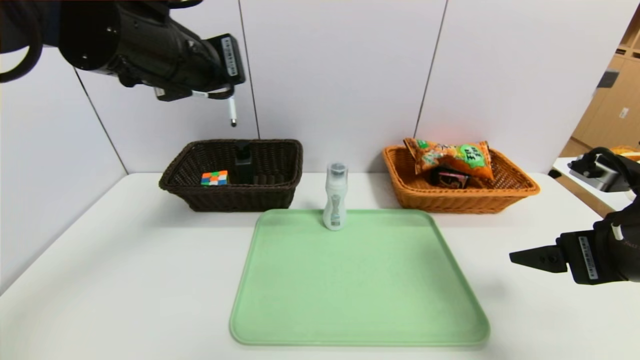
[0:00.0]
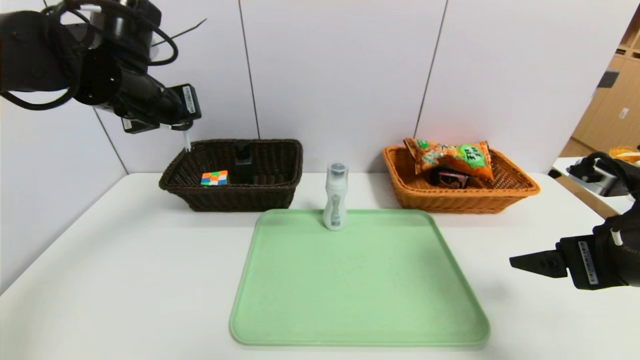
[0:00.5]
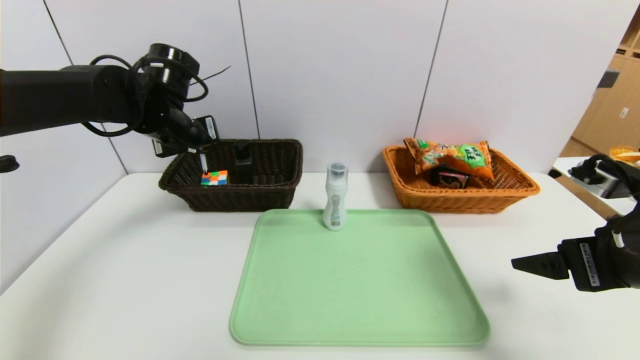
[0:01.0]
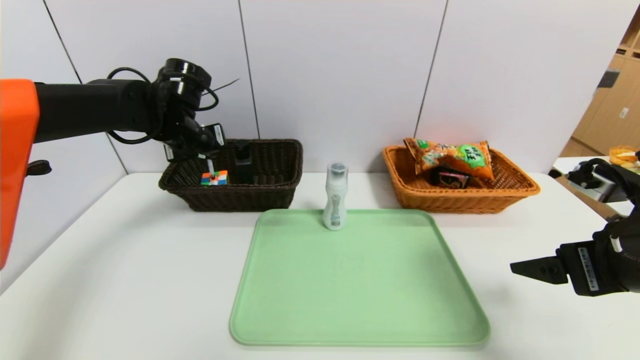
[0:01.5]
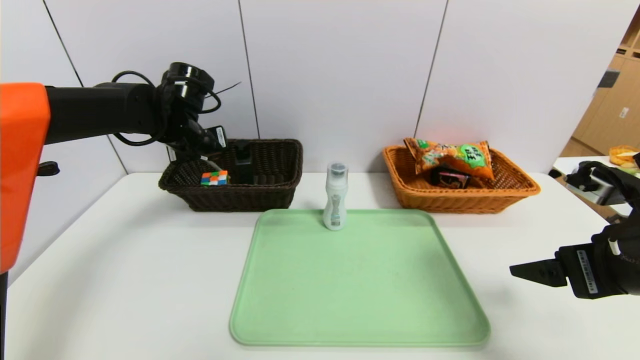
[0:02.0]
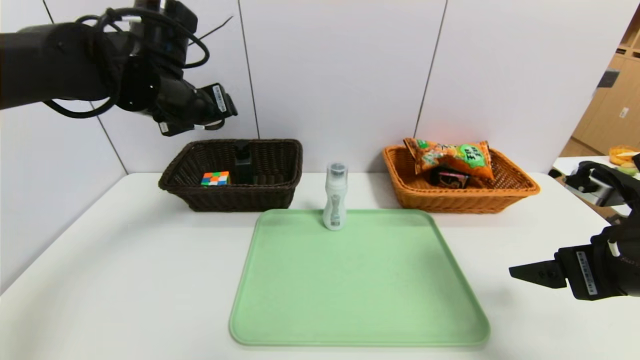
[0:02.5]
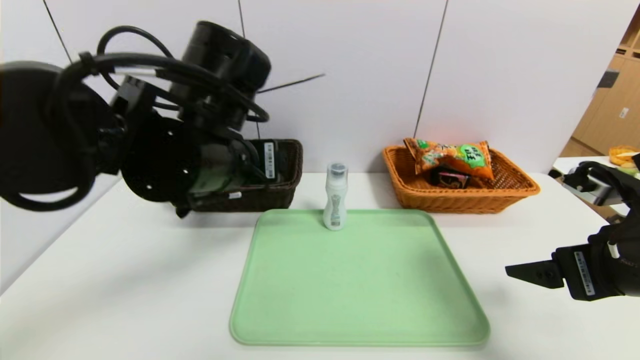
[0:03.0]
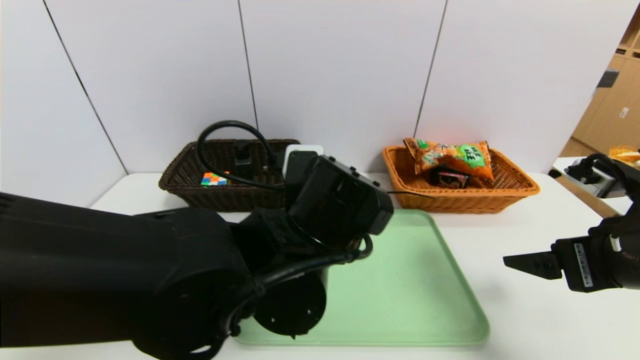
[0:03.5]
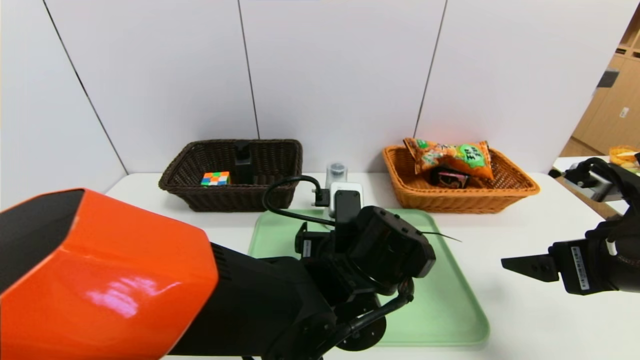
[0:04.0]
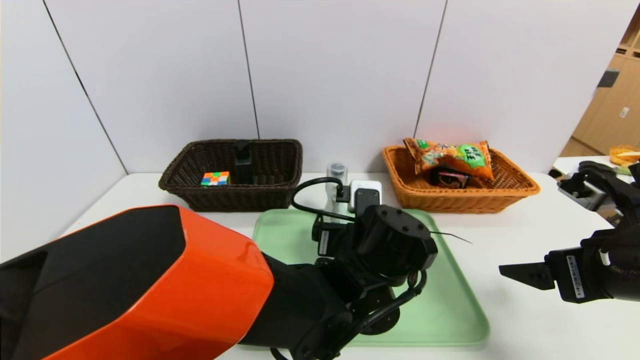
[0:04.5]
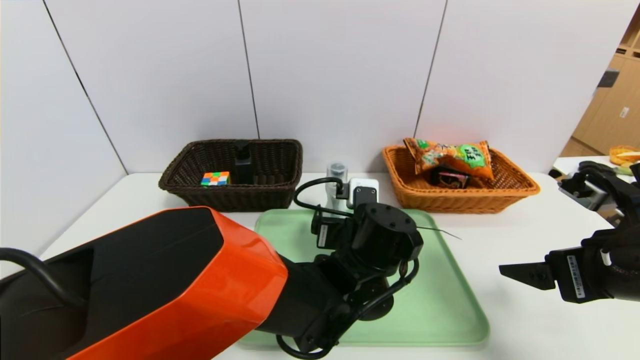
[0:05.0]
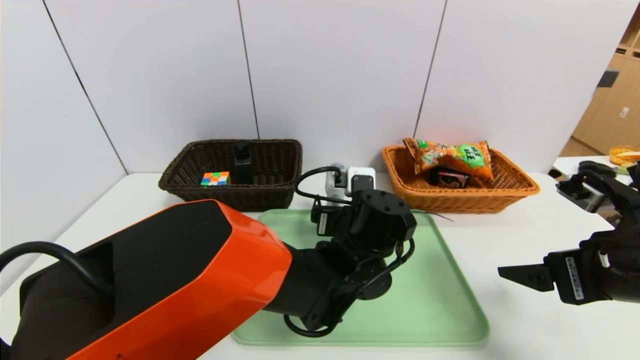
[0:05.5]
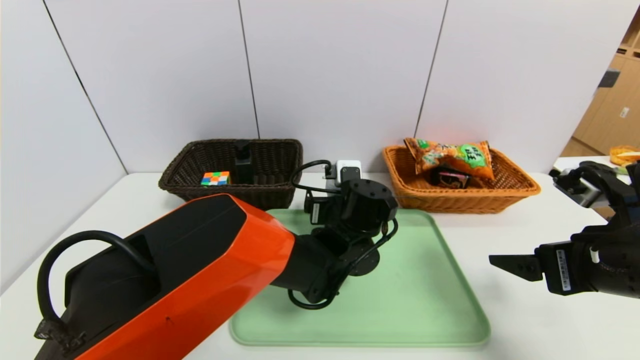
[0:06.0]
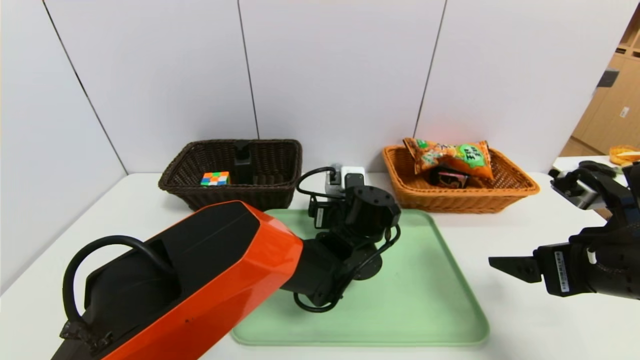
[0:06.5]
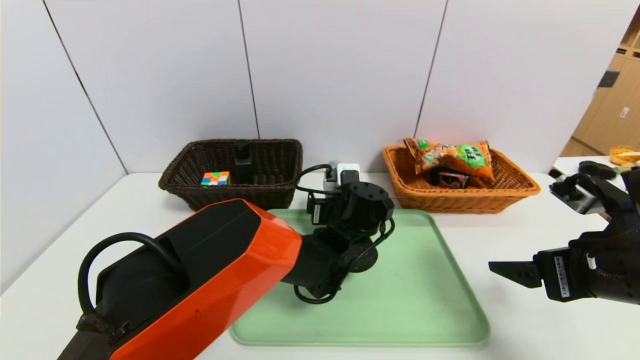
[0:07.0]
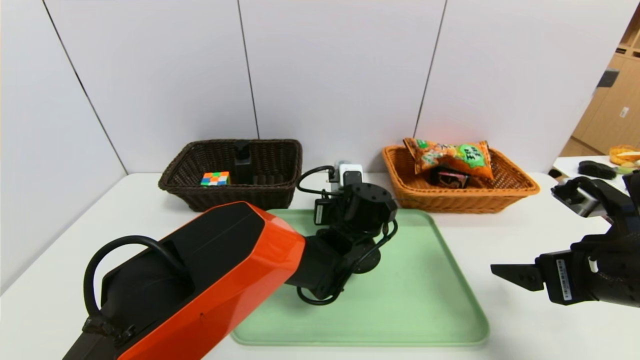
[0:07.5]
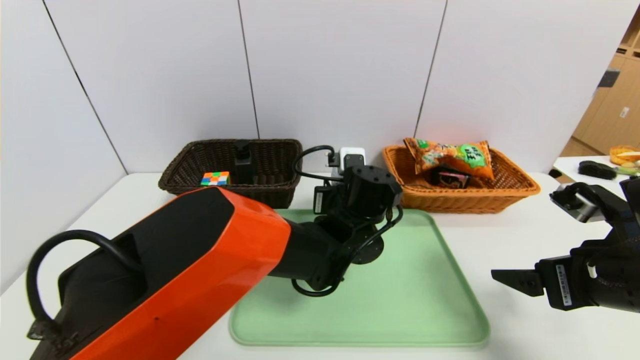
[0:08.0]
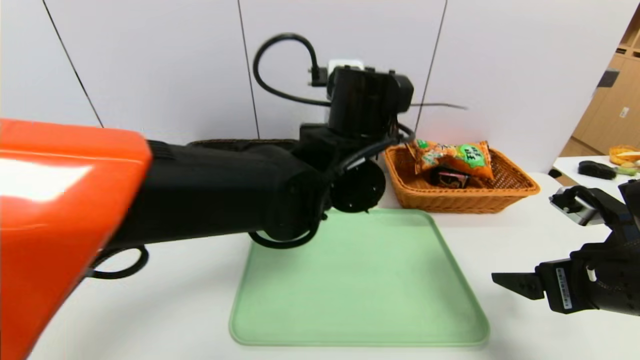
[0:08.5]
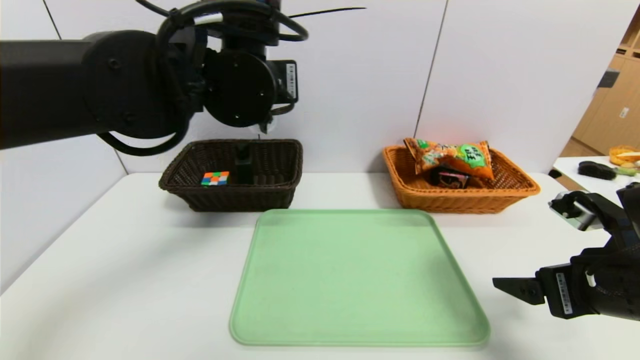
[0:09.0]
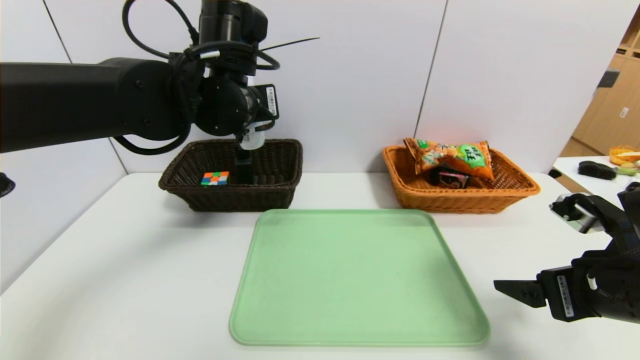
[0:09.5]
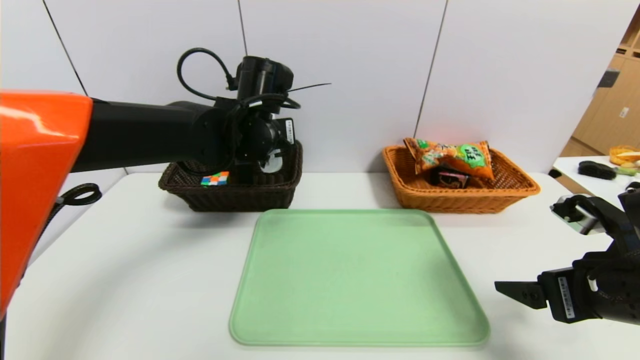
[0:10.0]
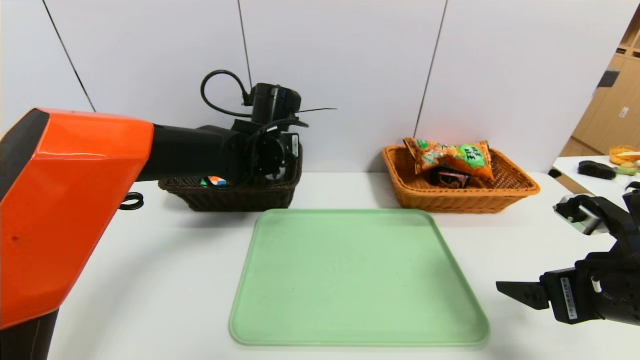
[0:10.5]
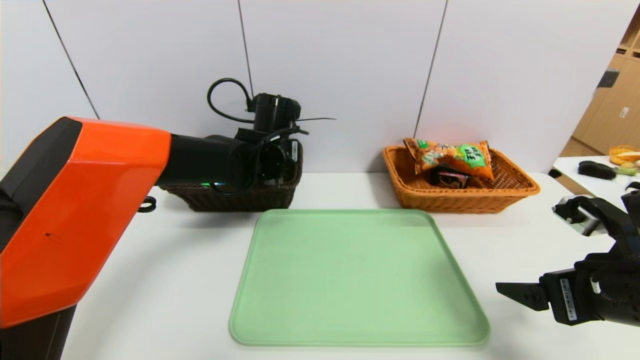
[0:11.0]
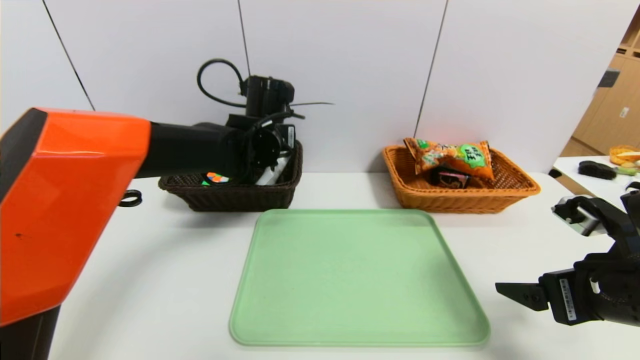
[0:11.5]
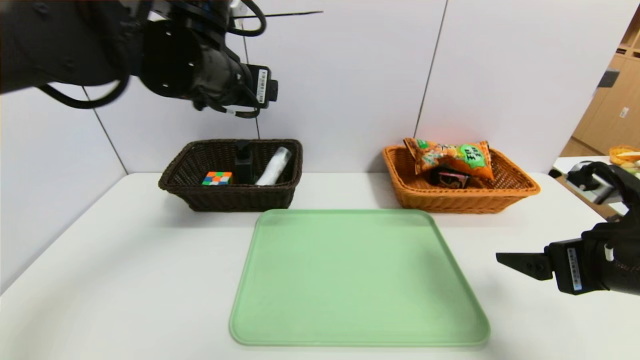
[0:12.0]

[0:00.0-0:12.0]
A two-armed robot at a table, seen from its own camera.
Task of the whole recording: place the food in the right basket with the right gripper, and place the non food items in the left basket with the left gripper.
Step, 0:00.0 to 0:02.5: Grasp the ballpoint pen and put it in the left basket.
0:00.0 to 0:02.0: The left gripper travels forward, downward and to the left by some 20 cm, and opens.
0:02.0 to 0:04.0: The left gripper moves to the right, backward and downward, about 35 cm, and opens.
0:04.0 to 0:06.0: The left gripper moves forward, about 10 cm.
0:06.0 to 0:08.0: The left gripper closes.
0:08.0 to 0:10.0: The left gripper shifts approximately 20 cm to the left and upward.
0:10.0 to 0:12.0: The left gripper shifts some 15 cm upward and backward, and opens its fingers.

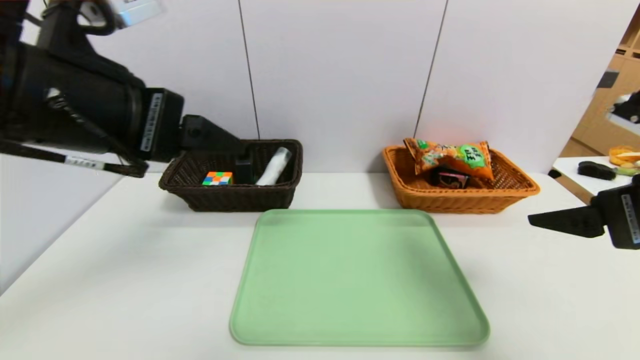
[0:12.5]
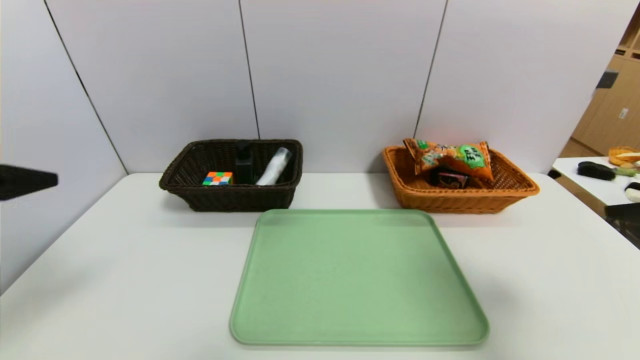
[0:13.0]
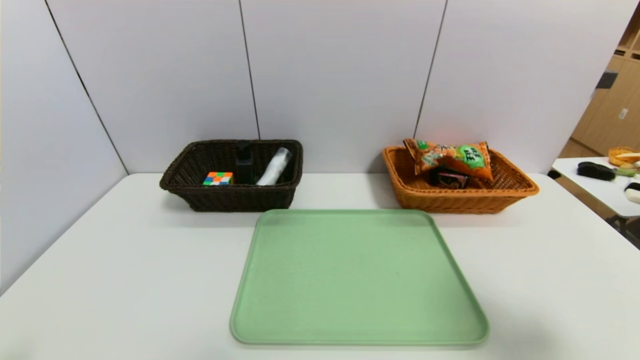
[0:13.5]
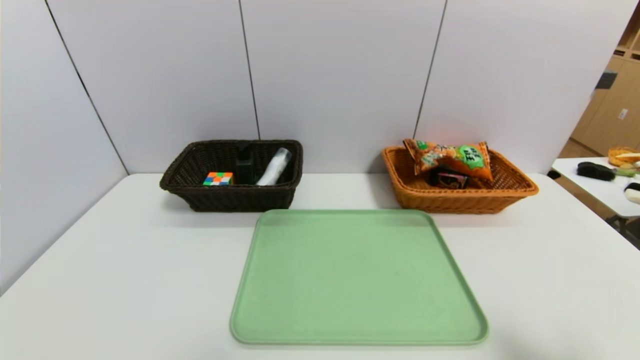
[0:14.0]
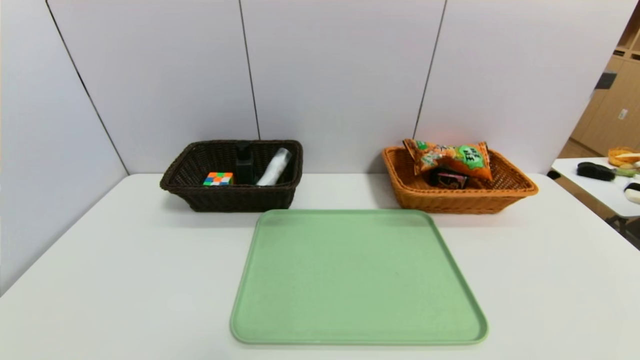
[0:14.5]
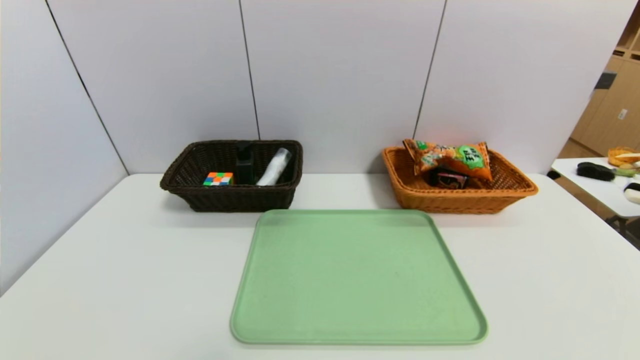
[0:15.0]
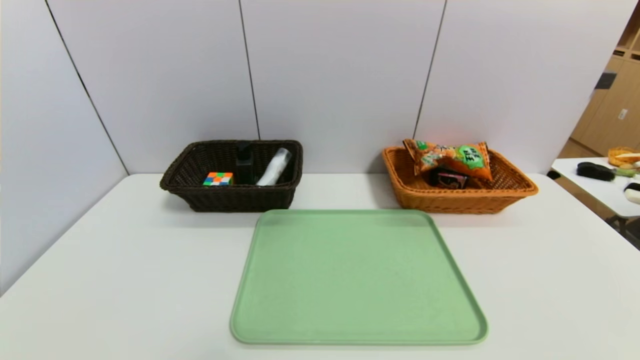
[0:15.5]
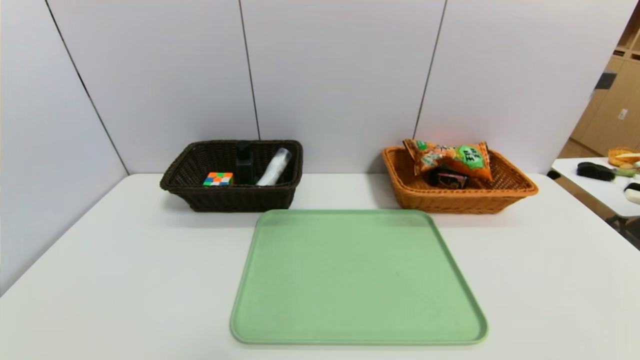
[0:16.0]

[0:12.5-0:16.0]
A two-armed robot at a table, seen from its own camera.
Task of the whole recording: place the food in the right basket with the right gripper, and place the non food items in the left basket with the left gripper.
0:12.5 to 0:14.5: The right gripper goes approximately 20 cm backward and downward; the left gripper shifts roughly 35 cm downward, backward and to the left.
